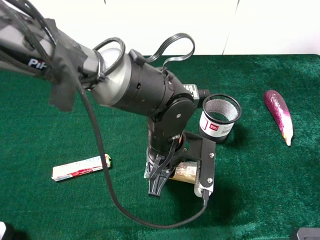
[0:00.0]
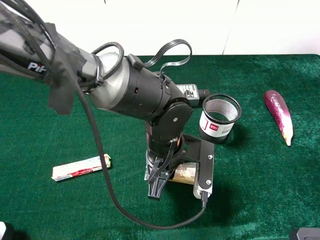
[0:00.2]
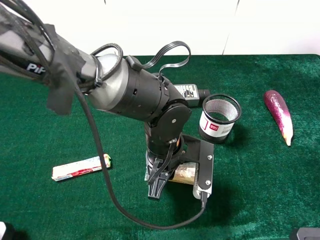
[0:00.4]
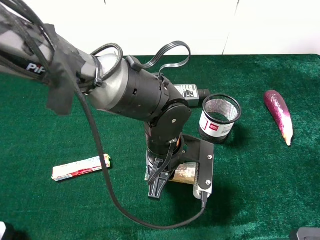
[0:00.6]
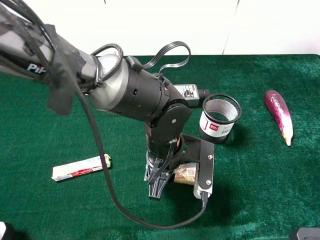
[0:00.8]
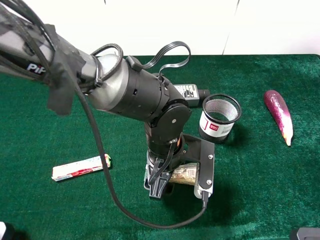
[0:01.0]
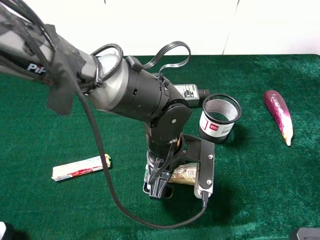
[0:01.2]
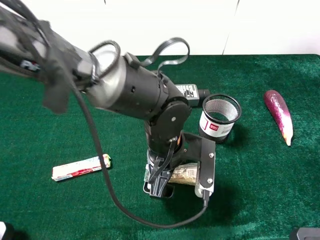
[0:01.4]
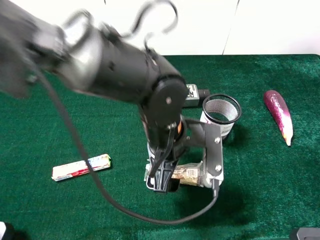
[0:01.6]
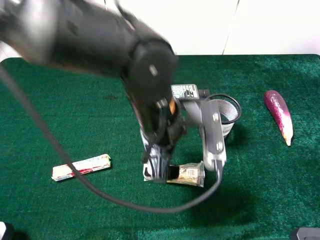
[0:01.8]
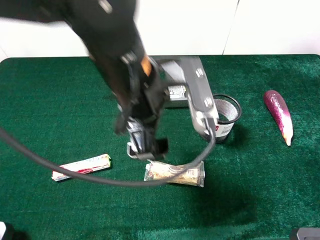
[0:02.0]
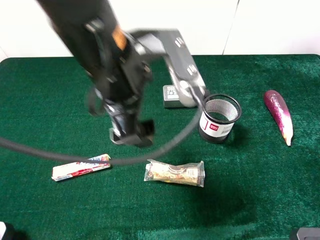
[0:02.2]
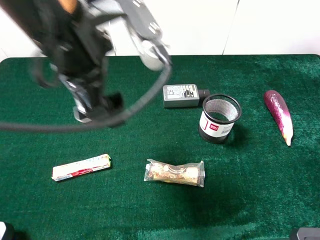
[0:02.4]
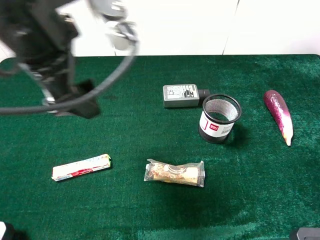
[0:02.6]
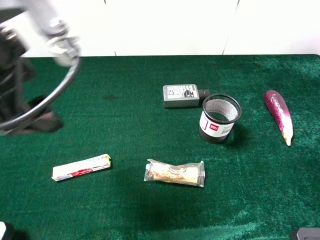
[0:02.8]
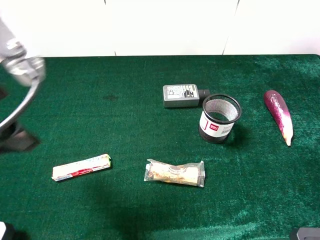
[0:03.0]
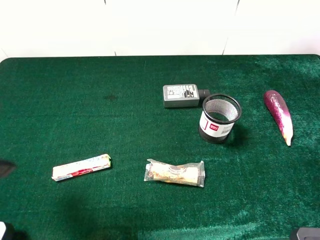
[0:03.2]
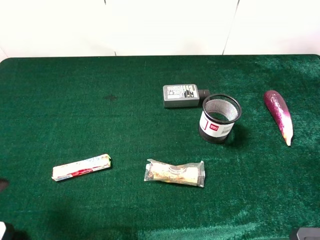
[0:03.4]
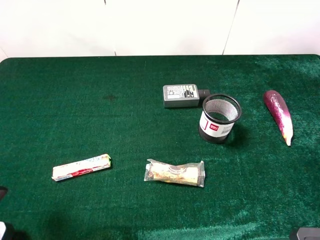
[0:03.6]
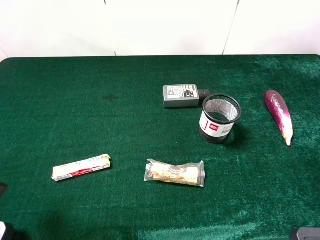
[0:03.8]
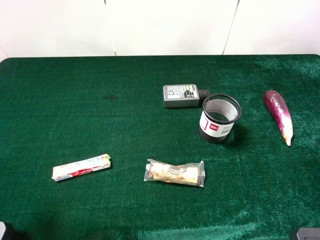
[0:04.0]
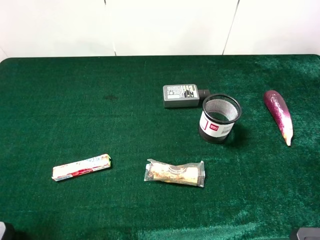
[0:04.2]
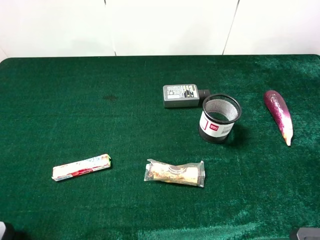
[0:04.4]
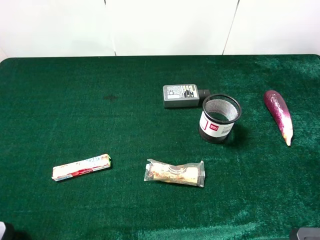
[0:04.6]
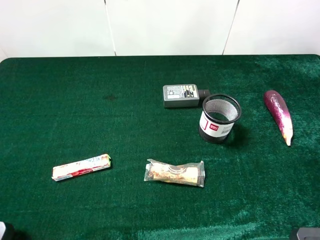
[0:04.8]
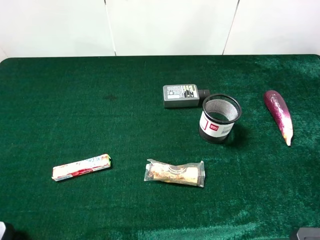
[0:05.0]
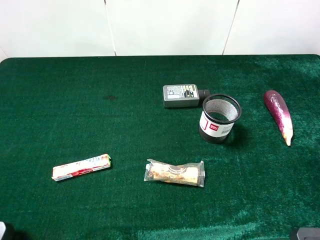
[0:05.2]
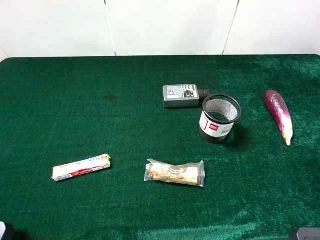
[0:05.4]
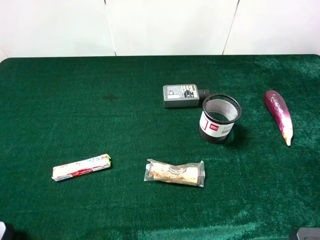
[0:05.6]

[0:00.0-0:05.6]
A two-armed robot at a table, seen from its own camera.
Task of the whole recording: the gripper move the object.
0:00.0 to 0:01.4: The left gripper opens up.
0:01.4 to 0:02.8: The left gripper shifts some 30 cm to the left and upward.
0:02.8 to 0:04.2: The left gripper goes about 15 cm backward and to the left.
